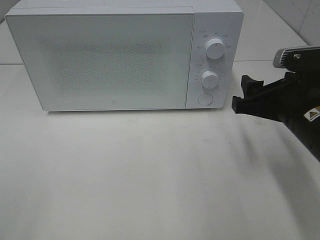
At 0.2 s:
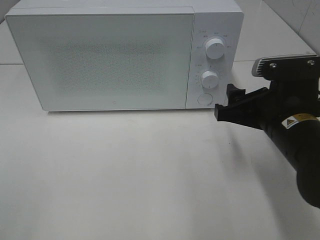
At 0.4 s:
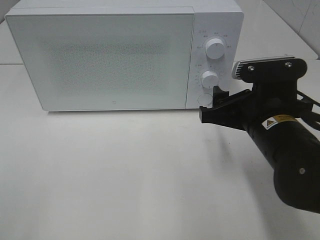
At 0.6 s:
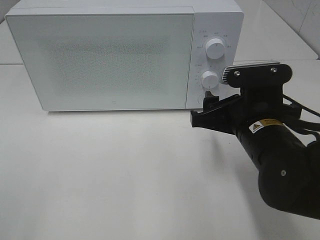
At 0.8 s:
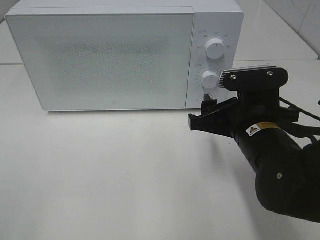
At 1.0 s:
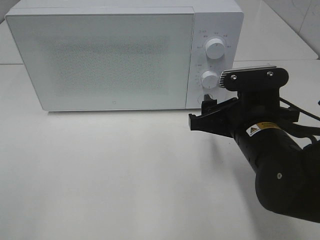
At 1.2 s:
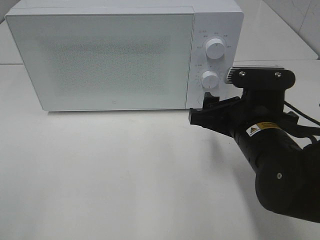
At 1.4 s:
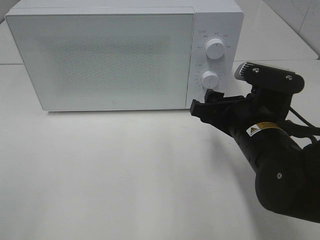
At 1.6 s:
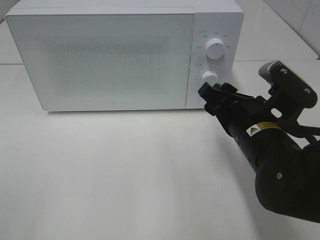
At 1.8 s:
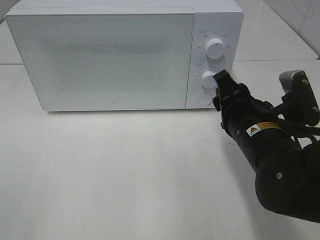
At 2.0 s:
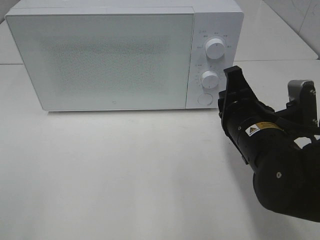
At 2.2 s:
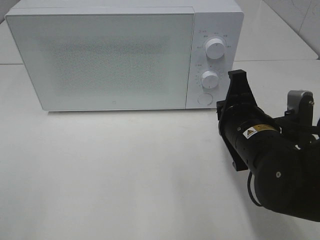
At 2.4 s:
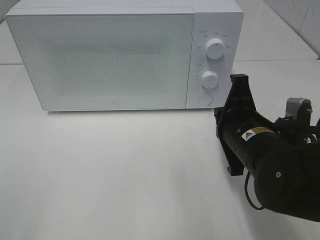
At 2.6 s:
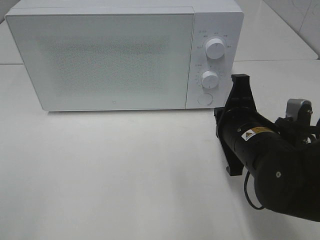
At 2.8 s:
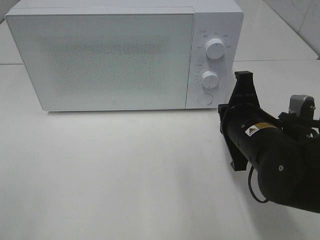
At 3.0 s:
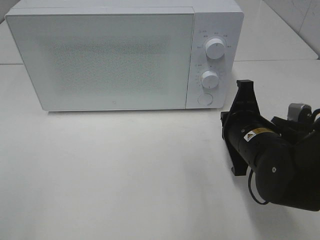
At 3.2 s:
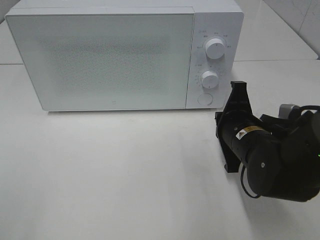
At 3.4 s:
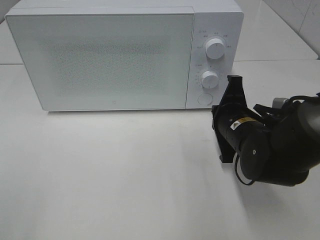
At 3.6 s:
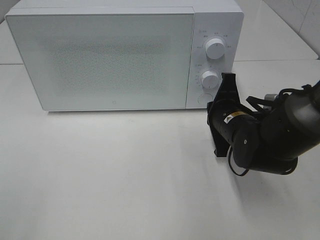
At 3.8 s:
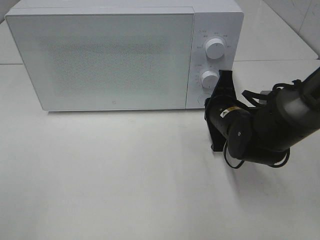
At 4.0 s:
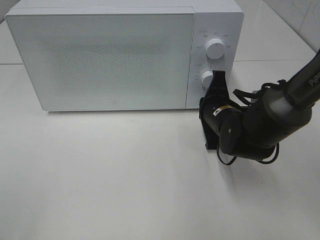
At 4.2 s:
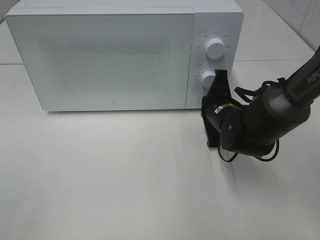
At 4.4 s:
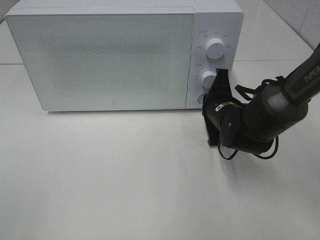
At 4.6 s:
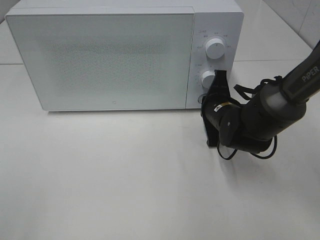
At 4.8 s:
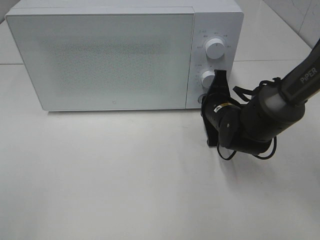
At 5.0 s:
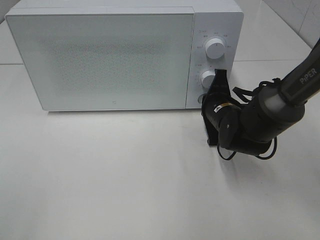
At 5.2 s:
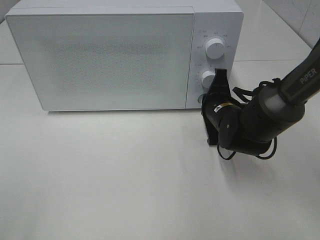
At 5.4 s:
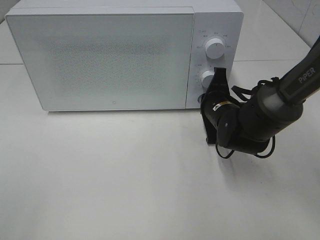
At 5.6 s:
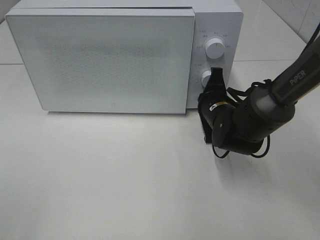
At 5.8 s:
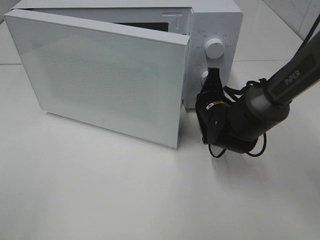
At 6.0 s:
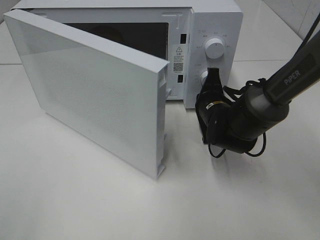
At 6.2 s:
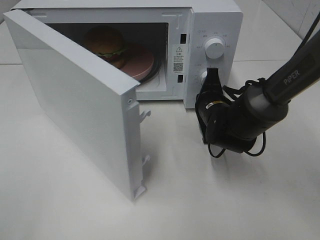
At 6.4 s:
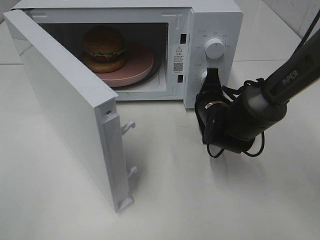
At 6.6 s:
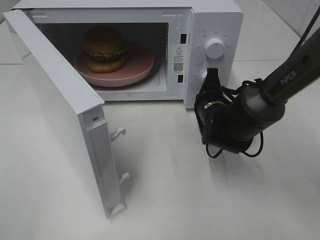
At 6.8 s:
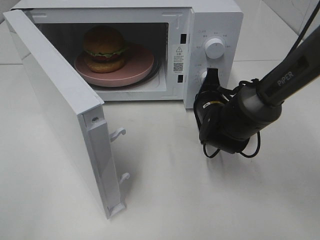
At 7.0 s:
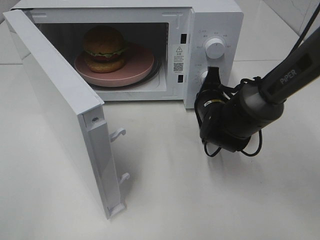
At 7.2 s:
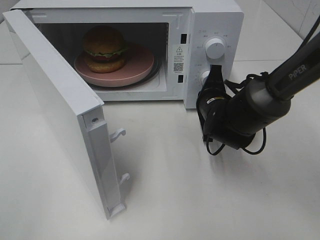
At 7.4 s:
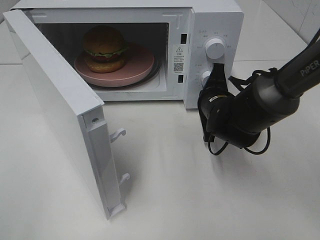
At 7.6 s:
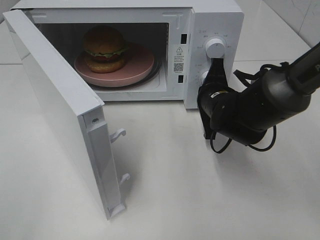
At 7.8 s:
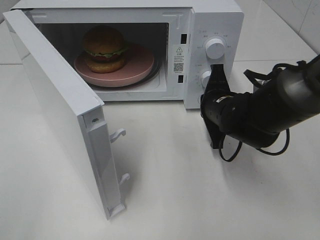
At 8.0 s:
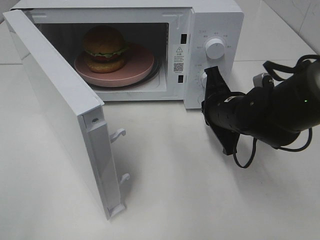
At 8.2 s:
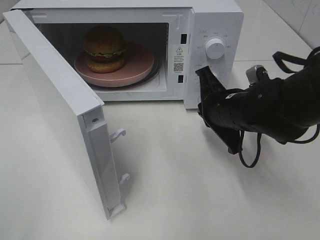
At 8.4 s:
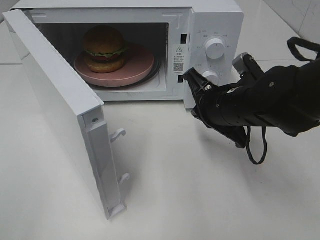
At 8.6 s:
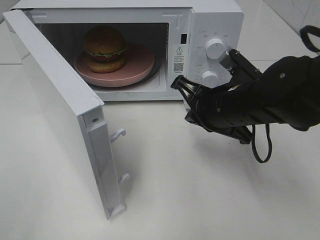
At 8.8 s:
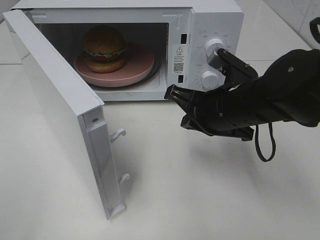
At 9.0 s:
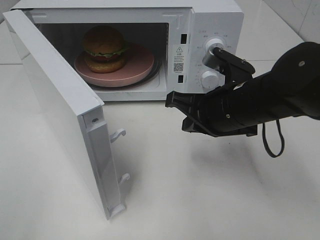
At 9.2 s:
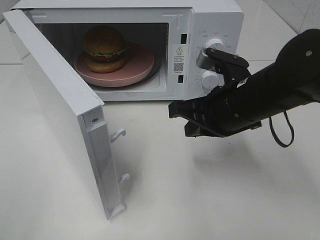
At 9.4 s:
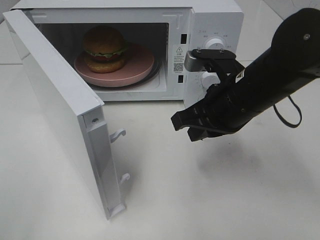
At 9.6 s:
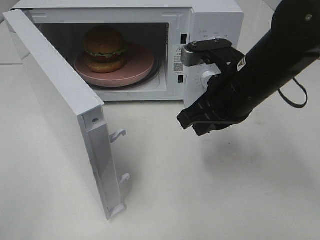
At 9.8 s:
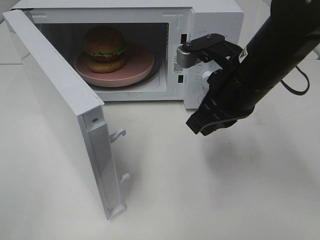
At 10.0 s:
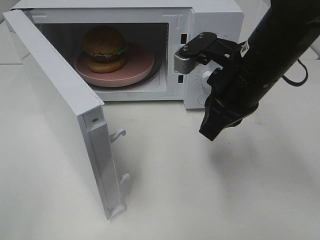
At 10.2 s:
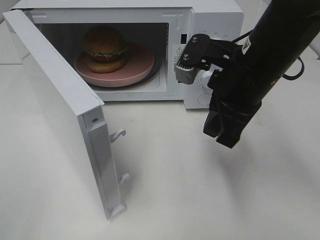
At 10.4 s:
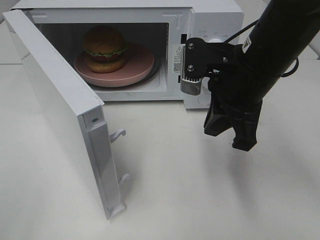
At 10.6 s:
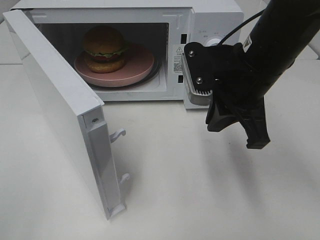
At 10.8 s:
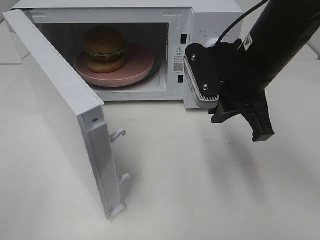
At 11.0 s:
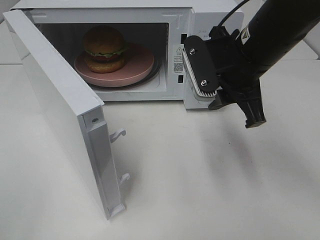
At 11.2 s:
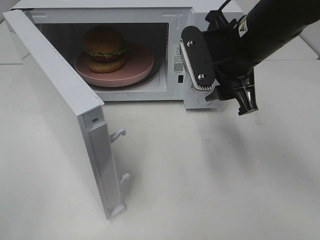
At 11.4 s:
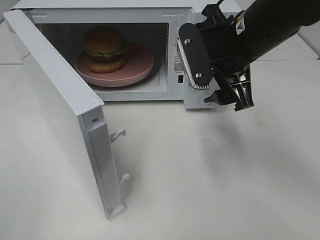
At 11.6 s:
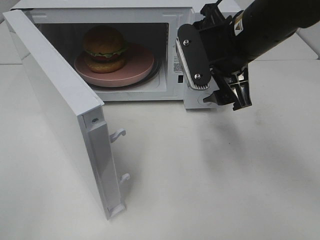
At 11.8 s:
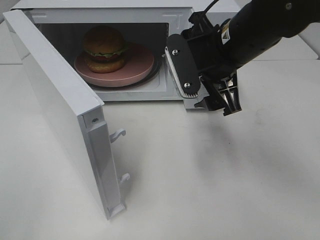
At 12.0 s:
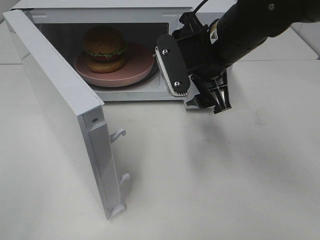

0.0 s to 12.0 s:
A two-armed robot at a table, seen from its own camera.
Task of the whole recording: Heat the burger.
Step, 0.0 to 7.4 s: Right hand: press the switch.
0.0 to 1.6 s: The right gripper moves to the left, approximately 5 cm.
1.6 to 3.0 s: The right gripper closes up.
3.0 to 4.4 s: The right gripper shifts about 10 cm forward.
7.6 to 9.0 s: The right gripper goes about 10 cm backward and upward.
9.0 to 10.4 s: The right gripper moves upward, approximately 5 cm.
10.4 to 12.0 s: The right gripper moves some 5 cm, and opens its fingers.

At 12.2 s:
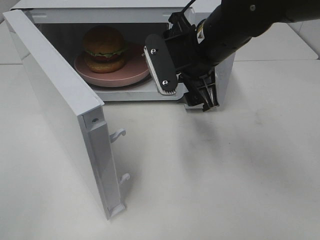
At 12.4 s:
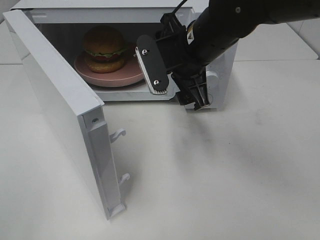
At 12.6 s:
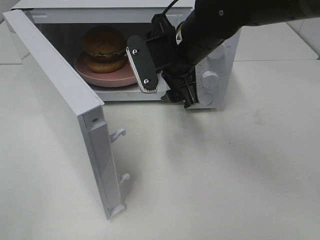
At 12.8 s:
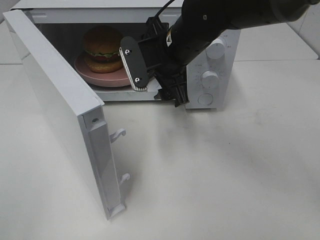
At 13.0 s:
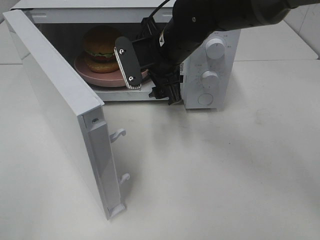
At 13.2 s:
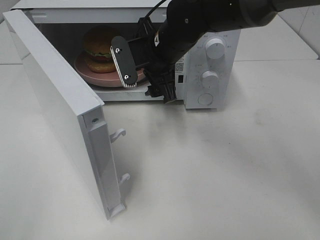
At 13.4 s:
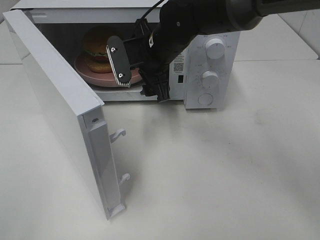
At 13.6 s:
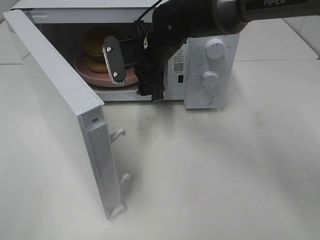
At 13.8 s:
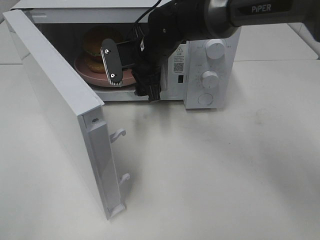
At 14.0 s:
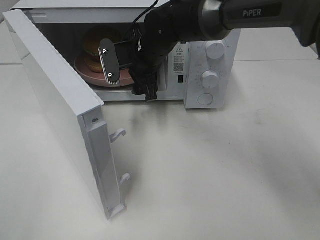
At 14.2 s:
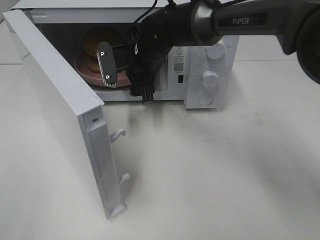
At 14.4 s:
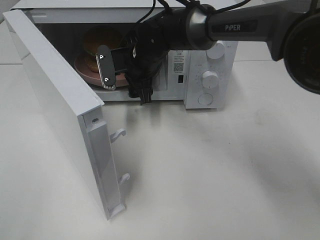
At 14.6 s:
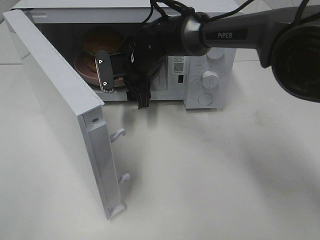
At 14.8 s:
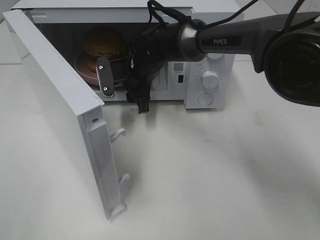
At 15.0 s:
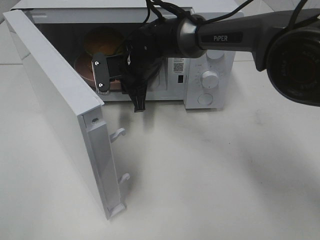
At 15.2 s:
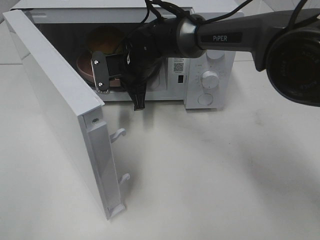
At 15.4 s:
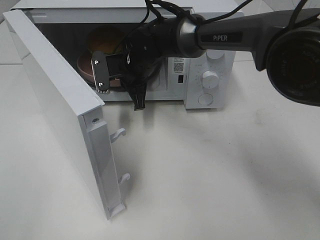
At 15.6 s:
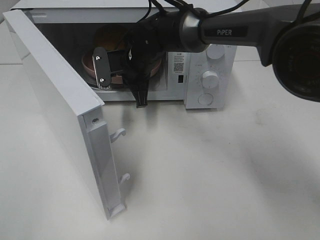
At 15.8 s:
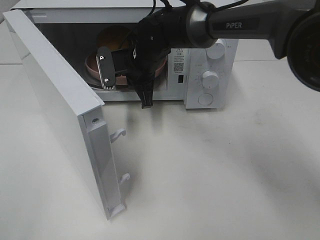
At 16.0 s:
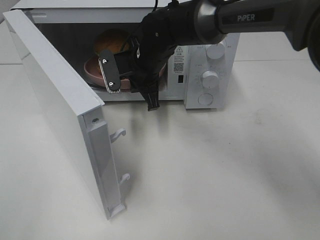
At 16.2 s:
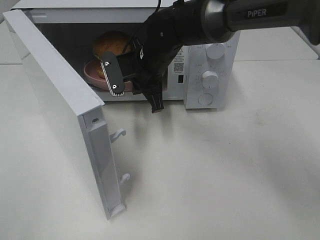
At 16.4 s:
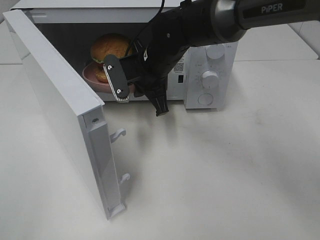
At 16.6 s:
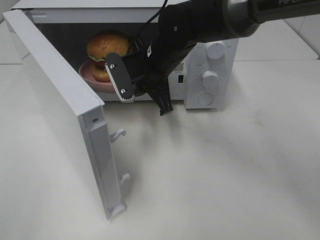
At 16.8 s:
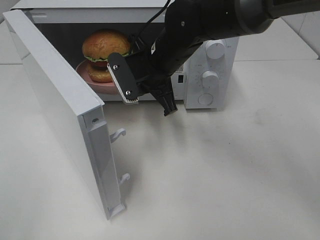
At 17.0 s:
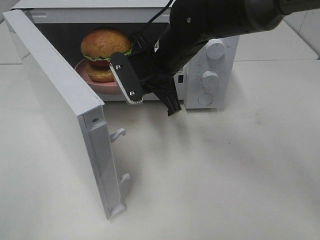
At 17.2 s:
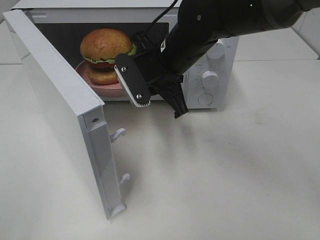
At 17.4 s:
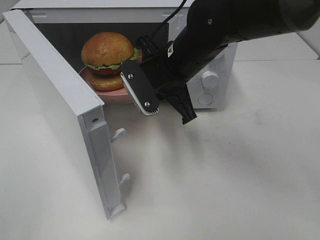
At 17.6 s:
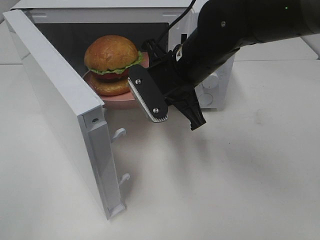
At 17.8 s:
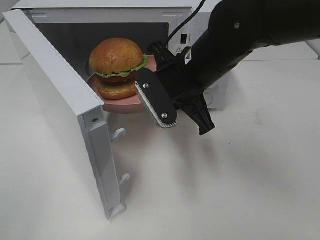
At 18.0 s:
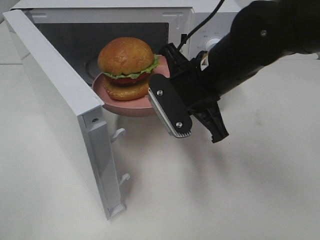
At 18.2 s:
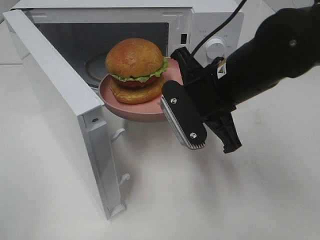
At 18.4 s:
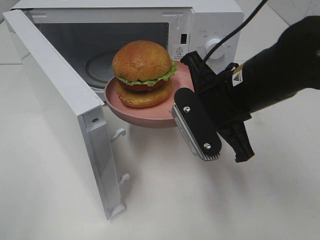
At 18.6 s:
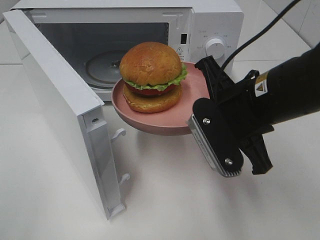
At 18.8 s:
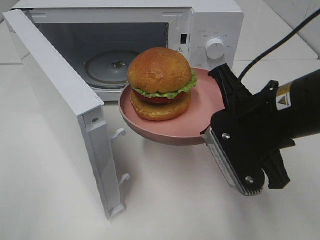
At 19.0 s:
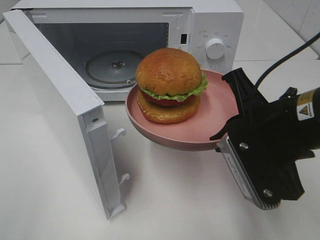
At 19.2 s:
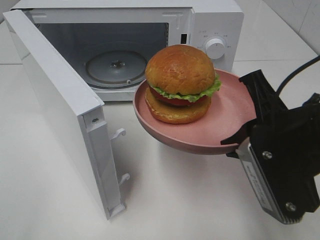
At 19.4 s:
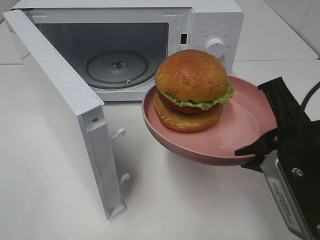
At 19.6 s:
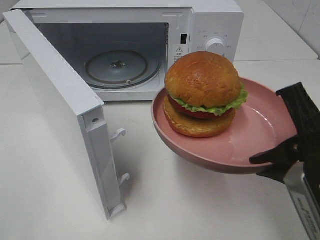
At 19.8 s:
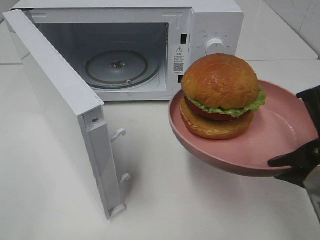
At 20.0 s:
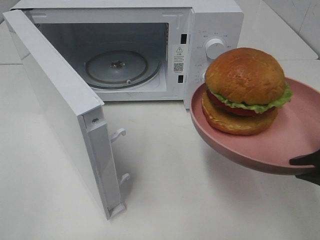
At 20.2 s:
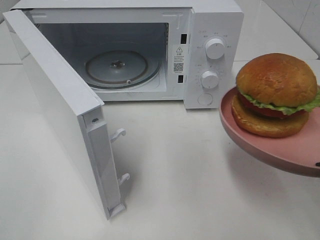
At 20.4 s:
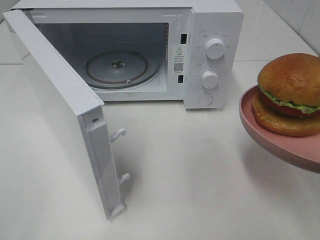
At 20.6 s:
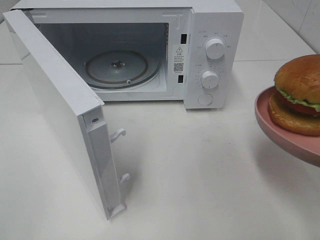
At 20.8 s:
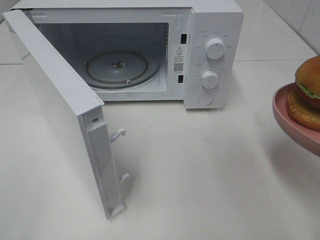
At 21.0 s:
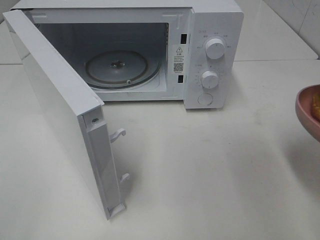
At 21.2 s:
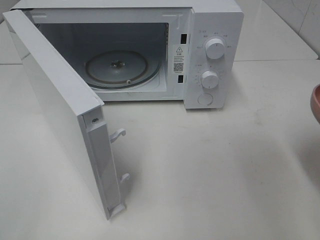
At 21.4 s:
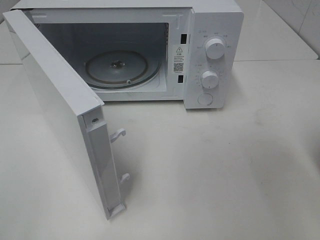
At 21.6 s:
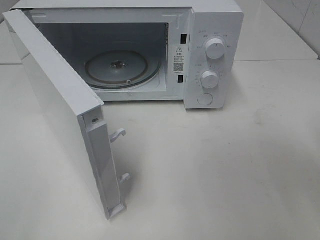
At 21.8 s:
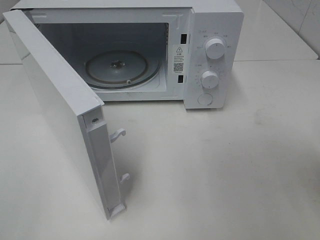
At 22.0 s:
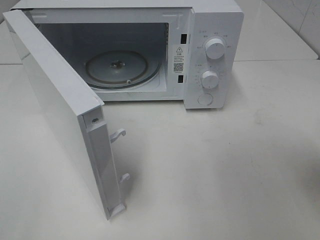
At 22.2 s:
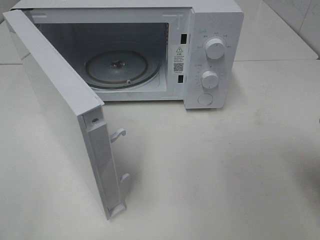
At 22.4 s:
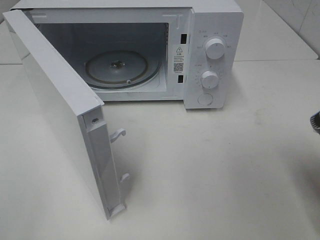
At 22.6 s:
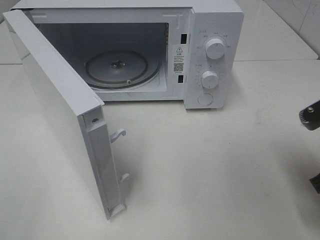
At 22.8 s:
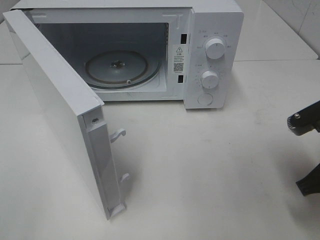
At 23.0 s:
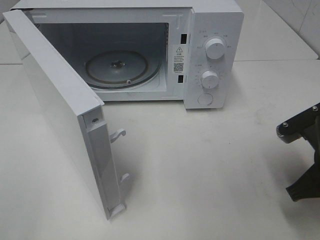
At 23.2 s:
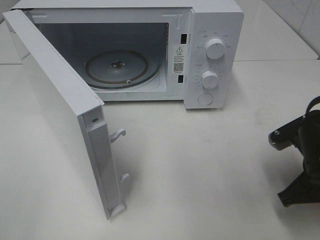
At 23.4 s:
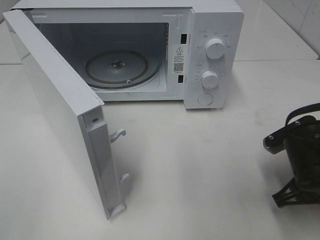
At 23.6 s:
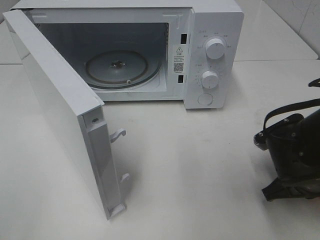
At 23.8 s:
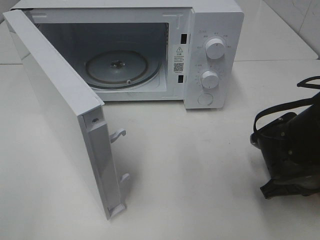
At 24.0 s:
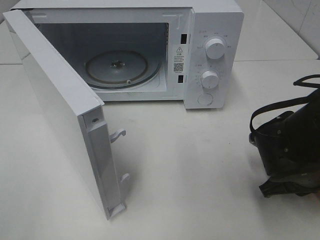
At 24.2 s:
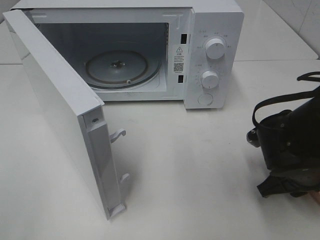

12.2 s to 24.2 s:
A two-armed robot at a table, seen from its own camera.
Task of the whole recording: Heat the burger.
Step, 12.2 to 15.2 s: Right hand: grab the plate with the hamburger.
Step, 15.4 to 24.2 s: Right hand: place the plate on the table.
12.2 to 13.8 s: The right gripper moves forward, to the left and downward, about 15 cm.
13.8 to 15.2 s: The right gripper changes place by some 5 cm, and closes up.
15.2 to 16.6 s: The right gripper heads backward, covering roughly 5 cm.
16.6 to 18.2 s: The right gripper is displaced backward and to the right by approximately 15 cm.
18.2 to 19.8 s: The right gripper goes approximately 20 cm backward and to the right.
19.8 to 21.2 s: The right gripper travels to the right by about 5 cm.
21.2 to 22.6 s: The right gripper shifts approximately 10 cm forward and downward.
22.6 to 24.2 s: The right gripper heads downward, covering some 10 cm, and opens up.
